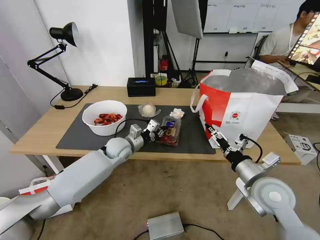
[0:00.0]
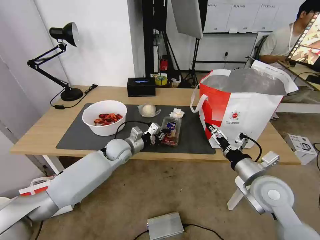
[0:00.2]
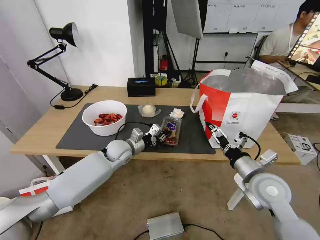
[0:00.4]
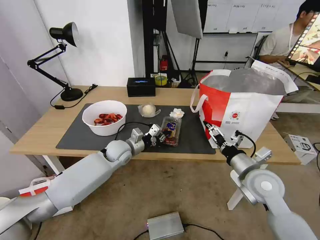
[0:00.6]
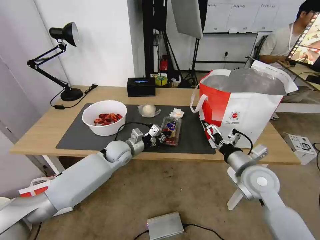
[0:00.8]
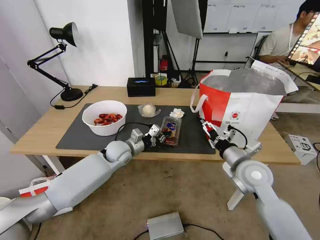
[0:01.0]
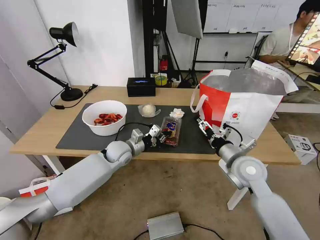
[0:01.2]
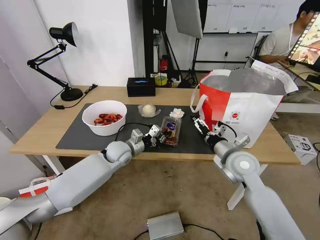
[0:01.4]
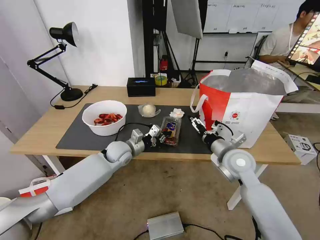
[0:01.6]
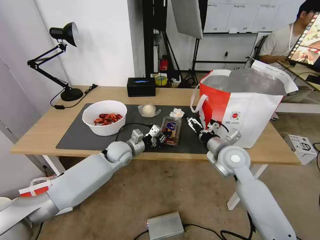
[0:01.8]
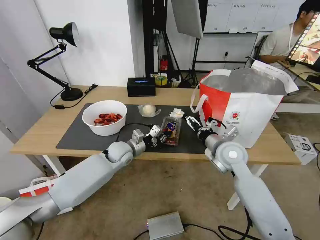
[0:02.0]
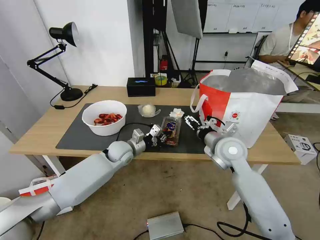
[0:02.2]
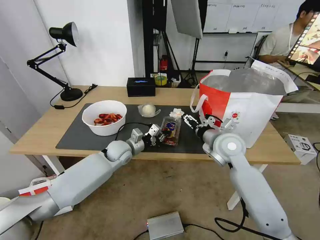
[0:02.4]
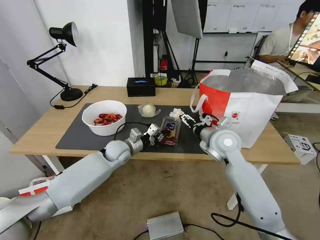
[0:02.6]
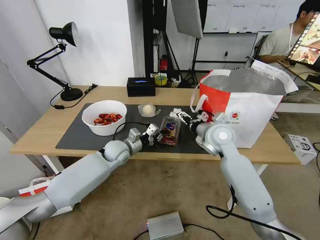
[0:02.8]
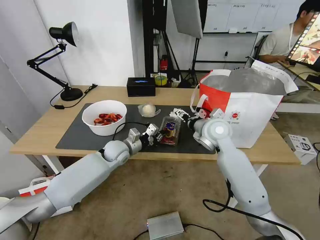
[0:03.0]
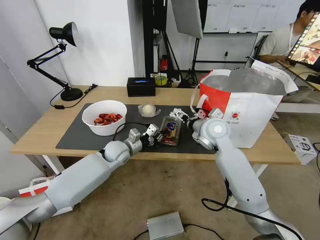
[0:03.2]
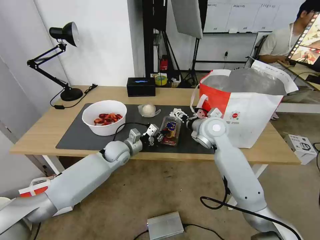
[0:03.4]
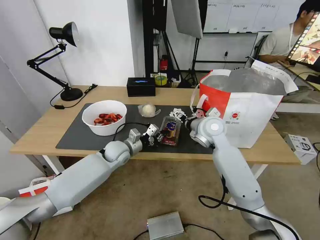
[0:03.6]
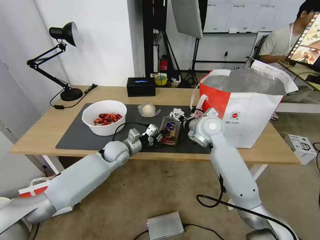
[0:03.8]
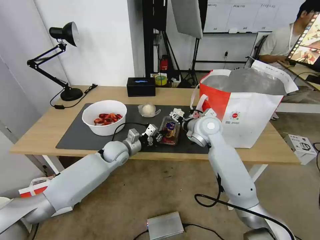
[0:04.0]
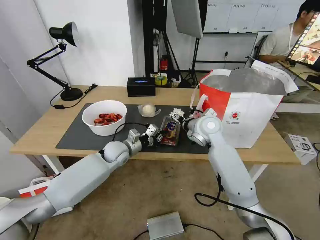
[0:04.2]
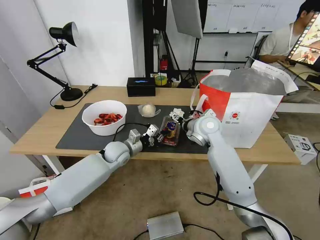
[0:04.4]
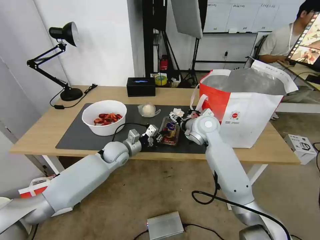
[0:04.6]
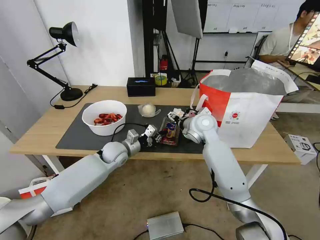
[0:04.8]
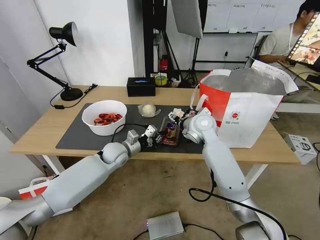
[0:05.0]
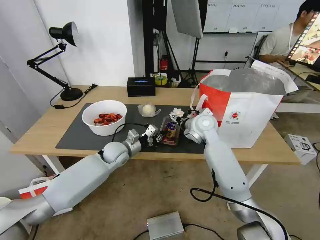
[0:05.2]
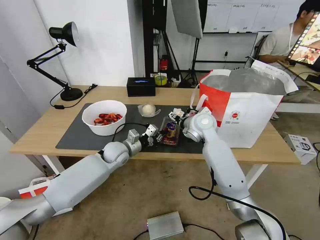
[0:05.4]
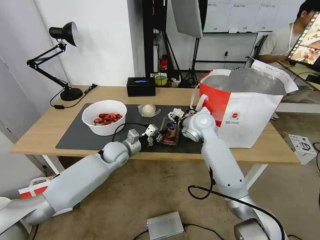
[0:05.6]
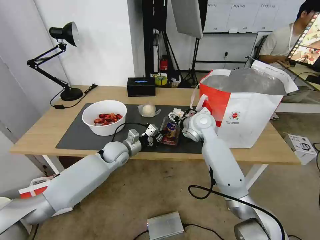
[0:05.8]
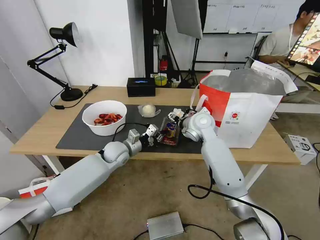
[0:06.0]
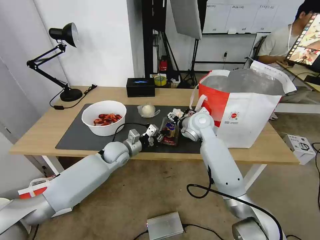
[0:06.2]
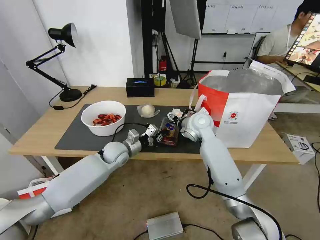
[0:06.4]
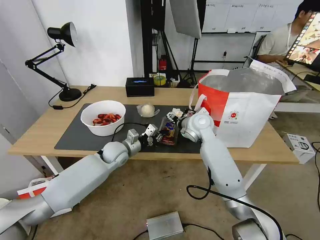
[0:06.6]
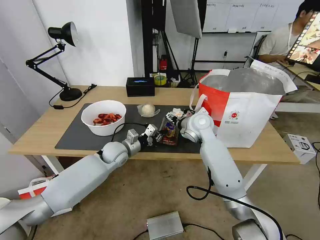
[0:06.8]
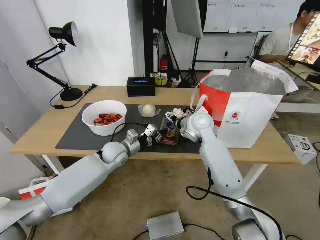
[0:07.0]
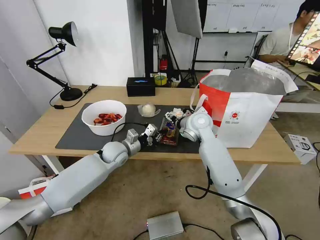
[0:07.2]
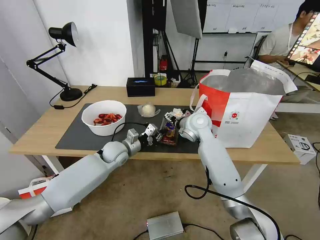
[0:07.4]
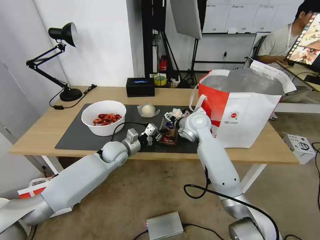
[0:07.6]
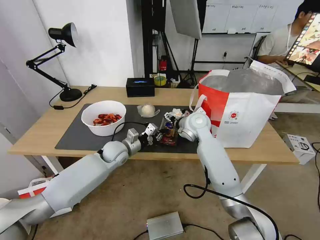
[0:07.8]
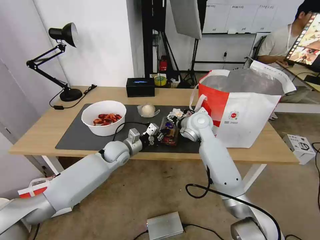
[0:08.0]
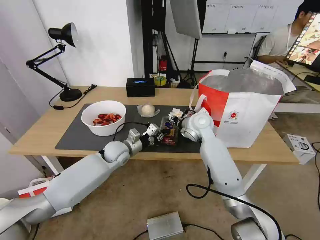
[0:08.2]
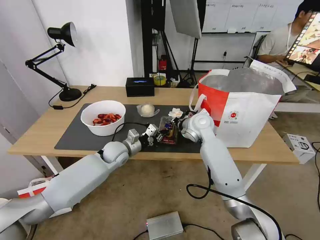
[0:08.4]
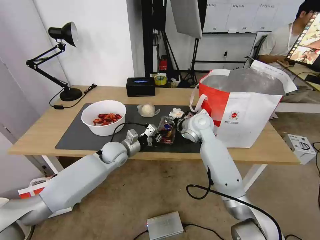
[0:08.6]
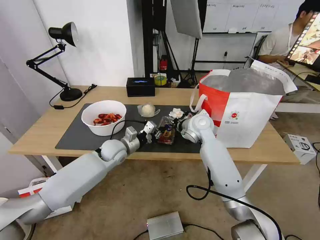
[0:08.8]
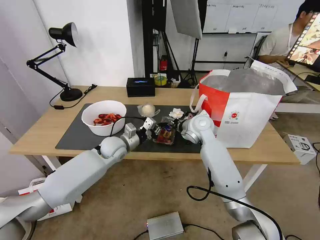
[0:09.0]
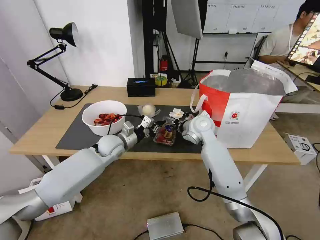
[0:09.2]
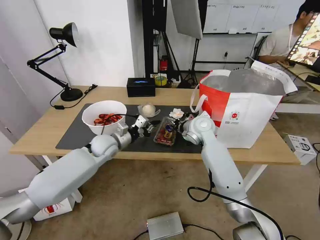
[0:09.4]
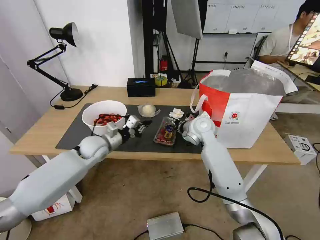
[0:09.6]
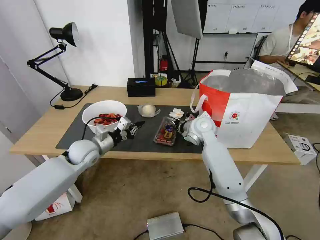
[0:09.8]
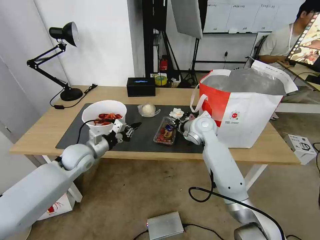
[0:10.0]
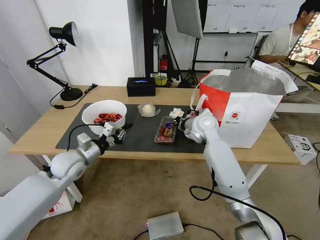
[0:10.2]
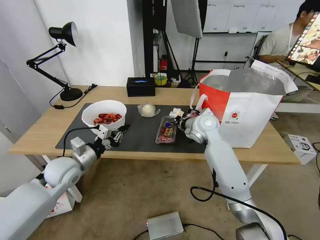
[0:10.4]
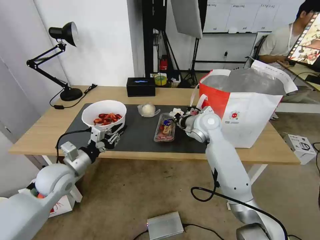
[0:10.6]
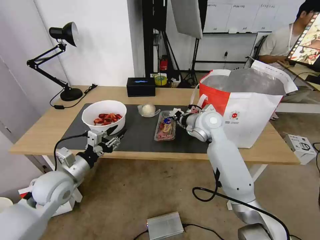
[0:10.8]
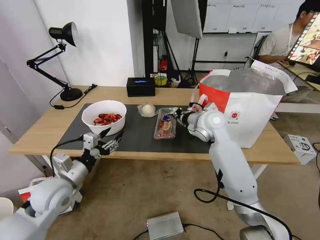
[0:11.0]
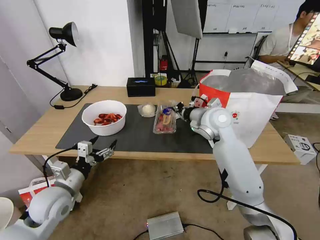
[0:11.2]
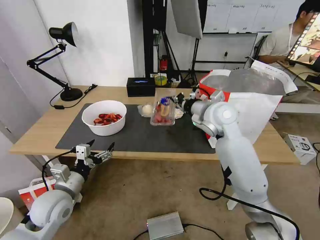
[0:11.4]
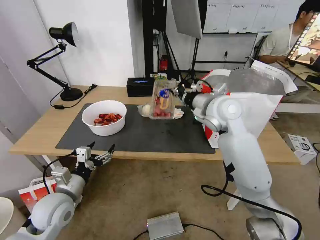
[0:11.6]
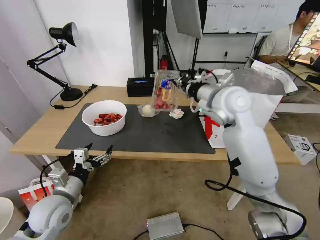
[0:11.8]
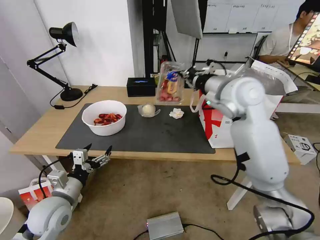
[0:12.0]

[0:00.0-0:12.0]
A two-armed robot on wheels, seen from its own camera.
Task of the whole recording: Pick up the trash from the table and place it into the takeout bag.
0:00.0 to 0:01.6: The right gripper shifts approximately 10 cm forward and to the left.
0:01.6 to 0:03.0: The right gripper is displaced forward, to the left and upward by roughly 10 cm.
0:03.0 to 0:04.4: There are only small adjustments of the grippers.
0:04.4 to 0:06.0: There are only small adjustments of the grippers.
0:06.0 to 0:07.6: Both grippers stay about where they are.
0:07.6 to 0:09.0: The right gripper closes up.
0:09.0 to 0:10.4: The left gripper moves to the left and backward, about 15 cm.
0:10.4 to 0:12.0: The left gripper is displaced backward by about 10 cm, and opens its fingers. Meanwhile the right gripper heads upward, covering some 15 cm.

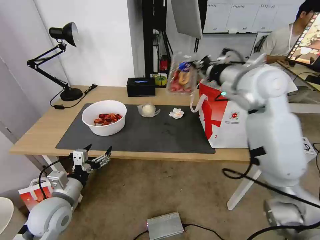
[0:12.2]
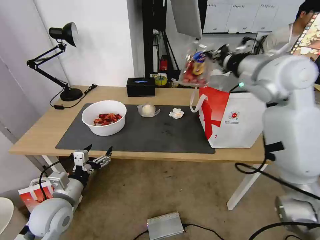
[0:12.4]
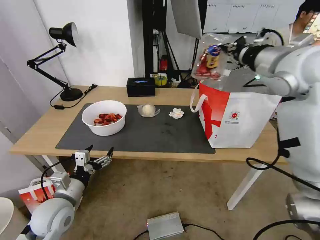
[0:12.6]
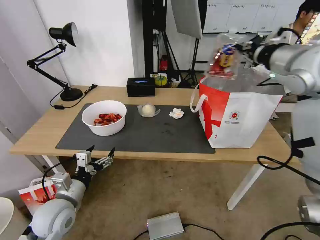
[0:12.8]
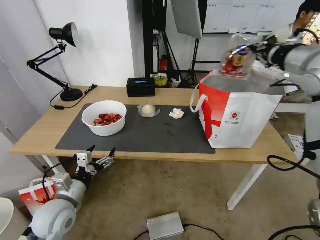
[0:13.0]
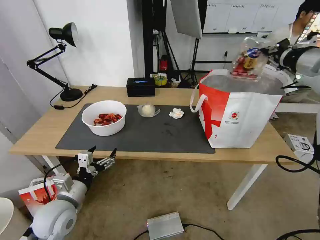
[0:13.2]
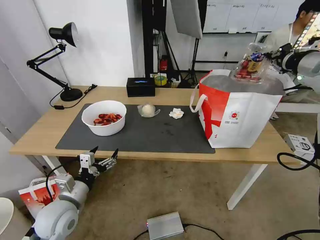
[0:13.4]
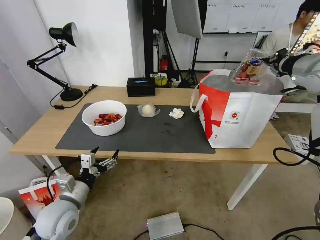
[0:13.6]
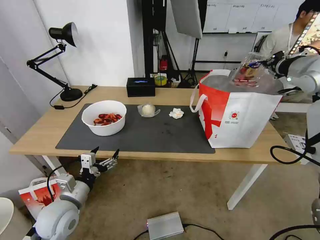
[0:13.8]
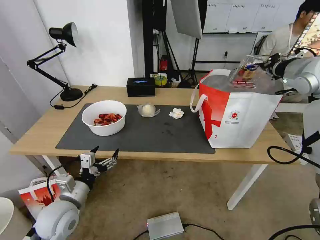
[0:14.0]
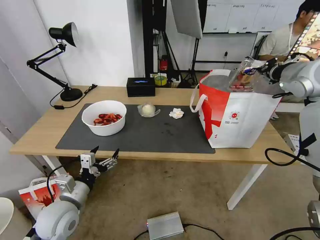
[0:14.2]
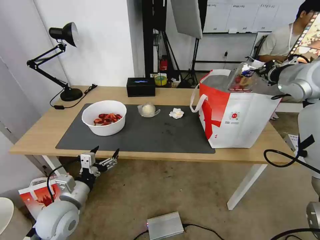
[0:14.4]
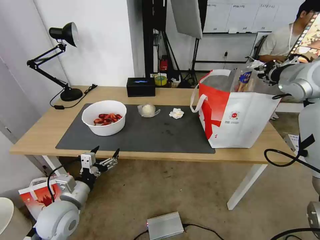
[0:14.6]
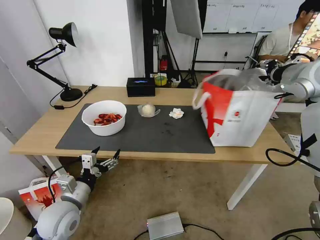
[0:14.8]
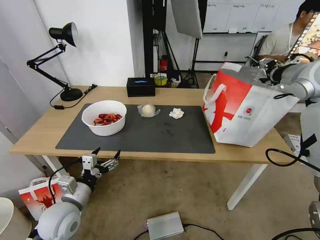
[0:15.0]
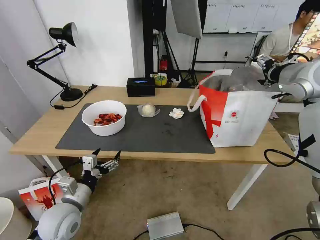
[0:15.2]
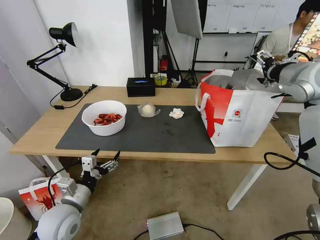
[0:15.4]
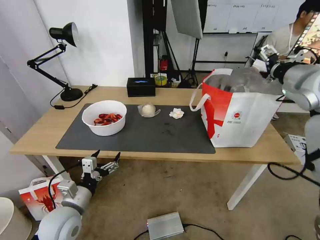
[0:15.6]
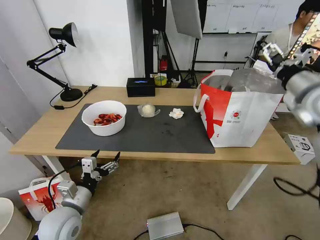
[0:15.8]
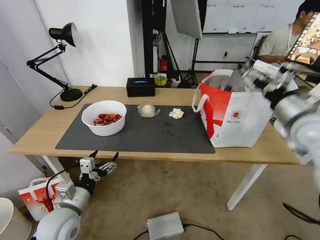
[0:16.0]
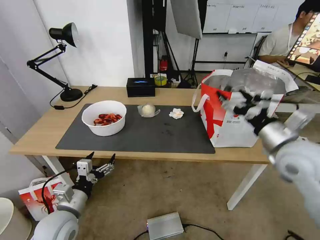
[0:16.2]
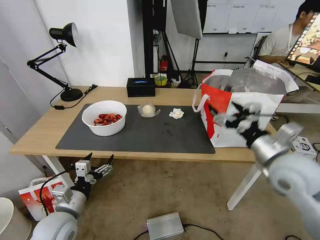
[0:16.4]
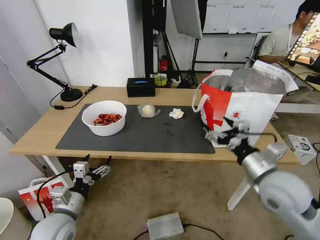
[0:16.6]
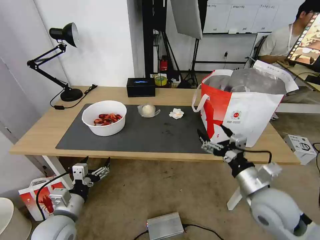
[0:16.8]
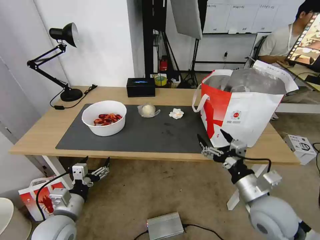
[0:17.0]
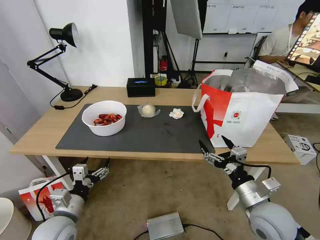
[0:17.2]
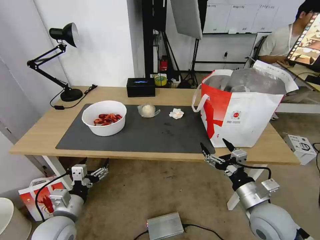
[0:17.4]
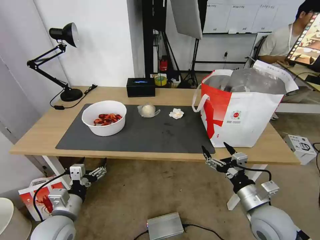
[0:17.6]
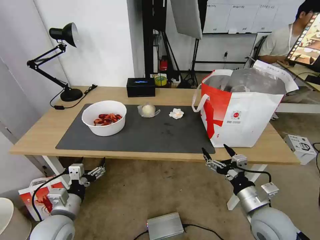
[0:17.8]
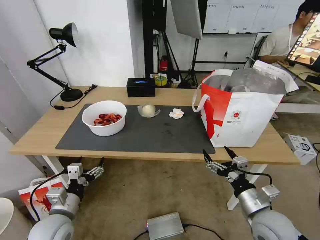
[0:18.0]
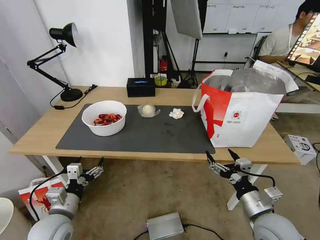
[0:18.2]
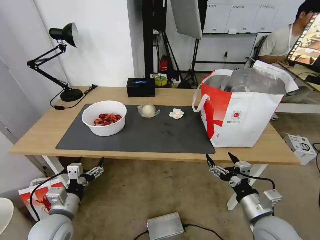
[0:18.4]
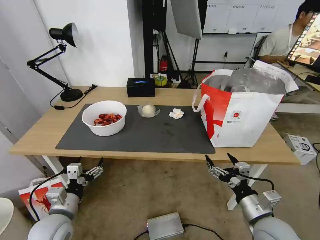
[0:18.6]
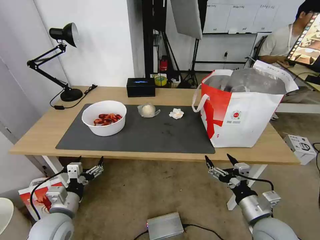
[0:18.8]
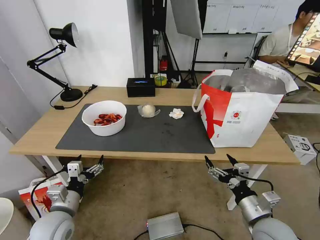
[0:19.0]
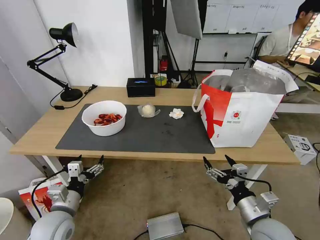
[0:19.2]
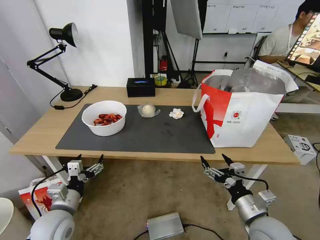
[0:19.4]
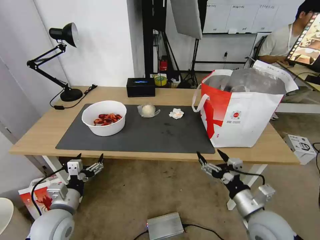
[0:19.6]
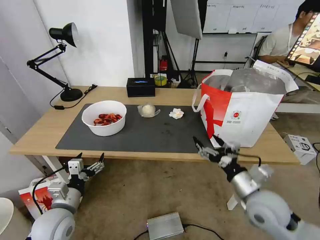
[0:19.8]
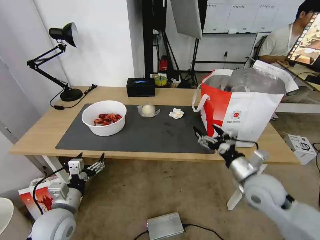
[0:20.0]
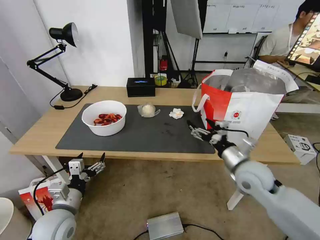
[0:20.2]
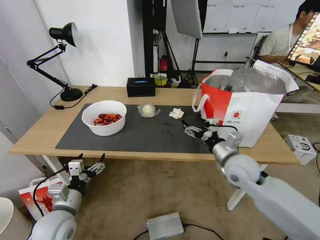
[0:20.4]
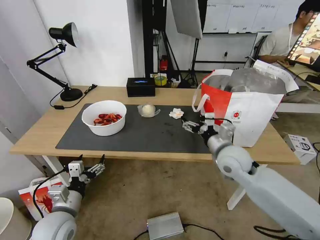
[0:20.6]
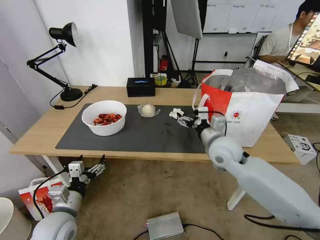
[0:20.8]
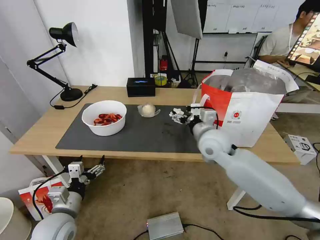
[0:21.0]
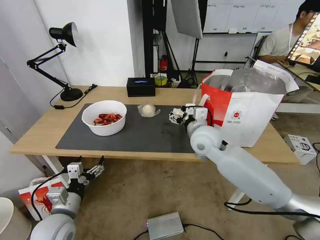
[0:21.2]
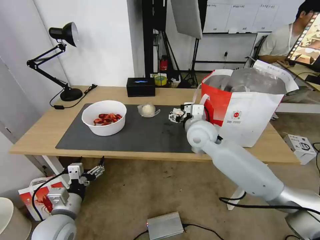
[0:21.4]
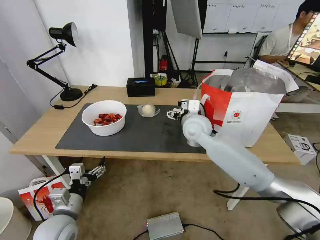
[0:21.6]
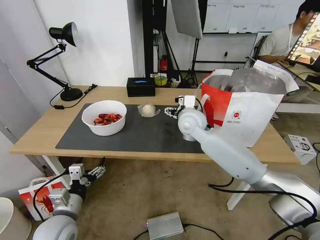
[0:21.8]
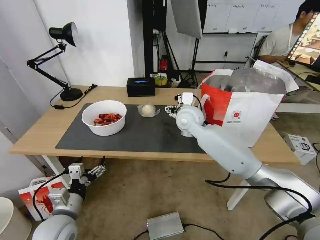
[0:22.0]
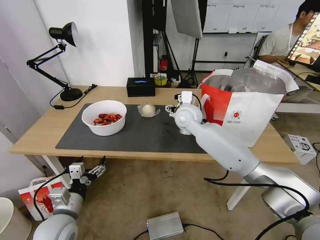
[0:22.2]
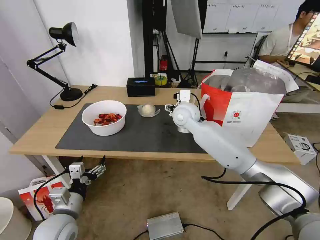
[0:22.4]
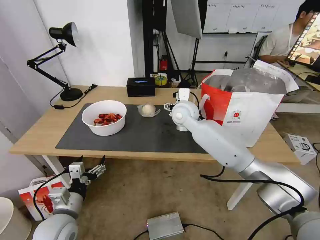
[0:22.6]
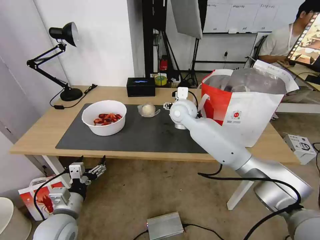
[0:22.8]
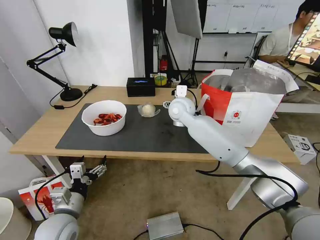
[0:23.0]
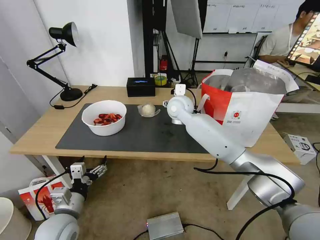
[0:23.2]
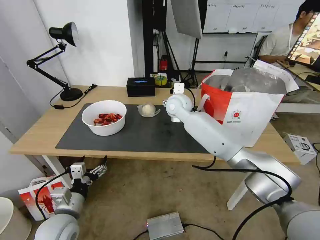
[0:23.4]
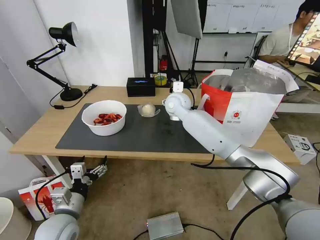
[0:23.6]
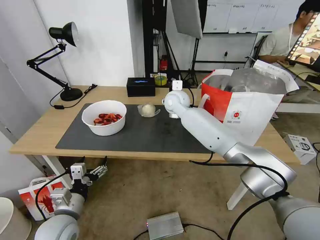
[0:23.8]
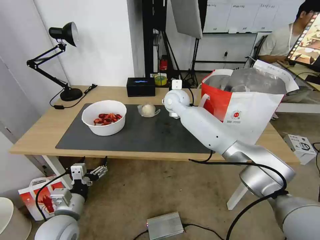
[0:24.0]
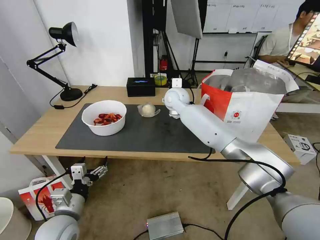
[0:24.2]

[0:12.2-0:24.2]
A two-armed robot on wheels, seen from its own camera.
Task of the whole recording: Pick up the trash from the table and place it into the takeout bag.
0:12.2 to 0:13.8: The right gripper travels to the right by approximately 20 cm.
0:13.8 to 0:15.2: The right gripper opens its fingers.
0:15.2 to 0:16.6: The right gripper moves backward, downward and to the left, roughly 30 cm.
0:16.6 to 0:18.2: The right gripper travels downward and backward by about 10 cm.
0:18.2 to 0:19.8: The right gripper ends up roughly 5 cm from where it was.
0:19.8 to 0:21.2: The right gripper goes roughly 25 cm forward, to the left and upward.
0:21.2 to 0:22.6: The right gripper goes some 10 cm forward and to the left.
0:22.6 to 0:24.2: The right gripper moves forward, roughly 5 cm.
